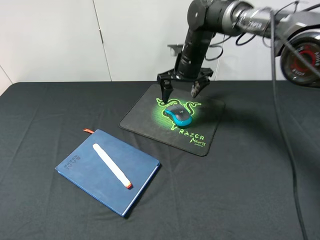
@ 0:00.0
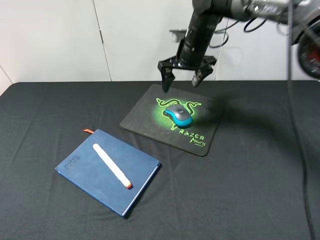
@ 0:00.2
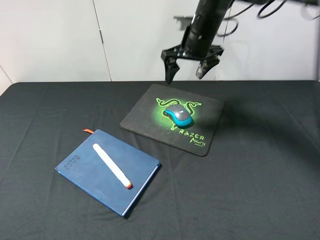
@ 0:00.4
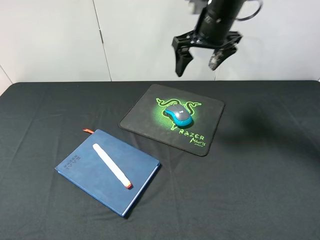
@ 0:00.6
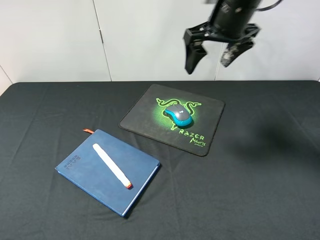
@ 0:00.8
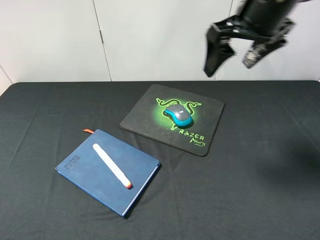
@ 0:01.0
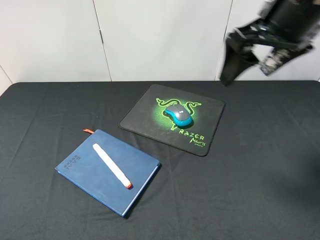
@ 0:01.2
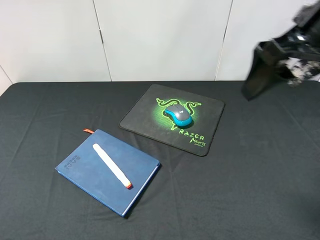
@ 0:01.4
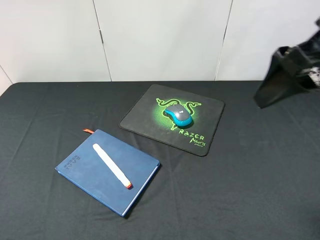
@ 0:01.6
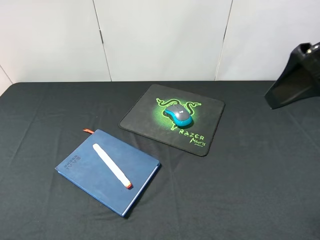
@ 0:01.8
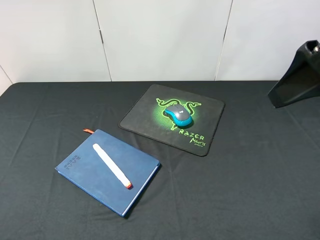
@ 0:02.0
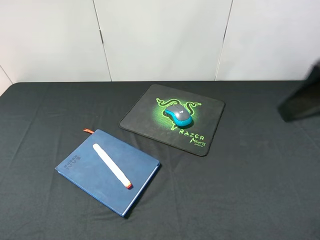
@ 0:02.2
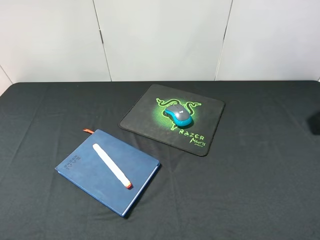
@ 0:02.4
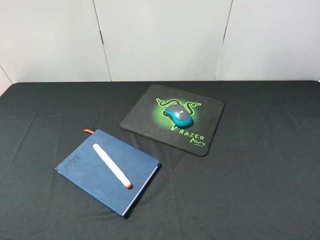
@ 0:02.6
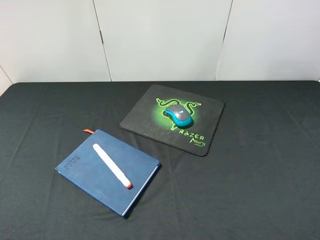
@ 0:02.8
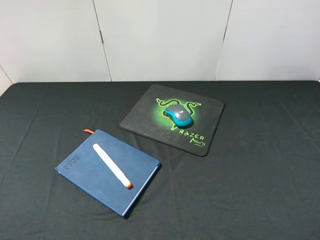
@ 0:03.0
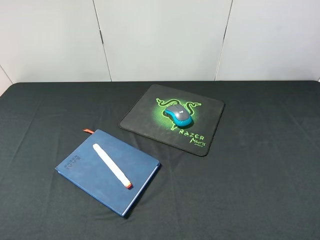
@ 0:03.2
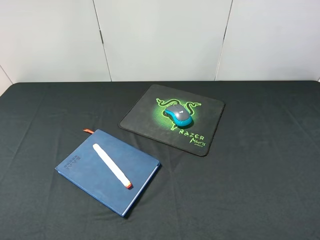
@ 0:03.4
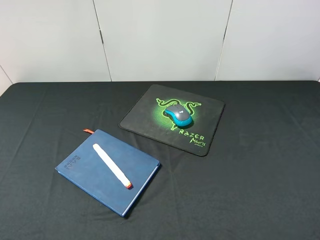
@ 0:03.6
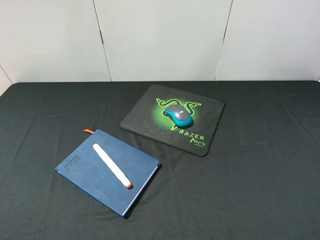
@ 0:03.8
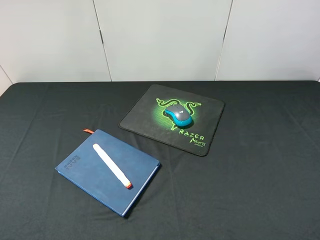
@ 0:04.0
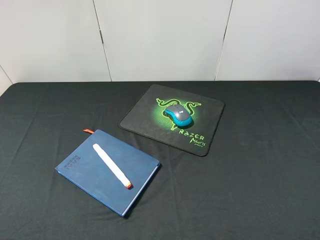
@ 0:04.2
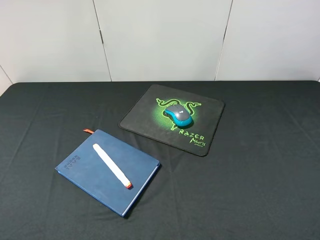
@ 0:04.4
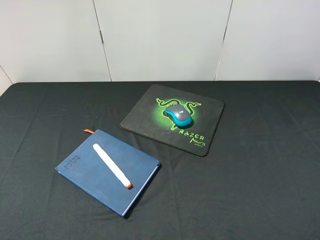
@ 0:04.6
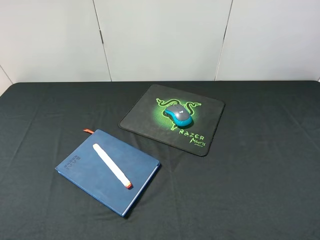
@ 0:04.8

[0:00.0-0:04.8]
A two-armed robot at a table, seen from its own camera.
0:00.0 to 0:01.6: The right gripper is displaced backward, upward and to the right by some 35 cm.
0:01.6 to 0:03.2: The right gripper shifts about 20 cm backward, to the right and downward.
0:03.2 to 0:04.8: Both grippers stay about where they are.
